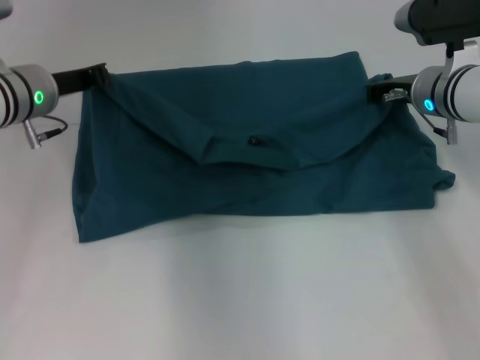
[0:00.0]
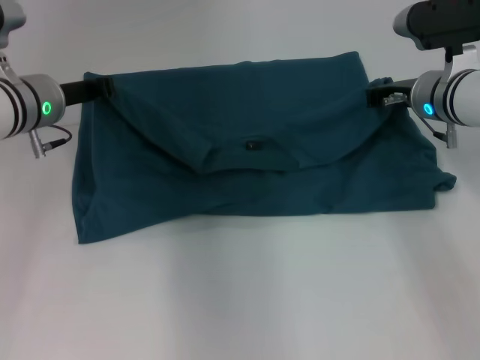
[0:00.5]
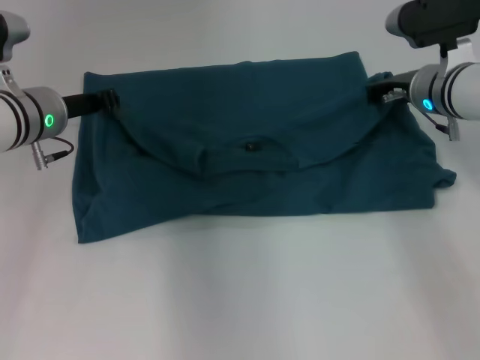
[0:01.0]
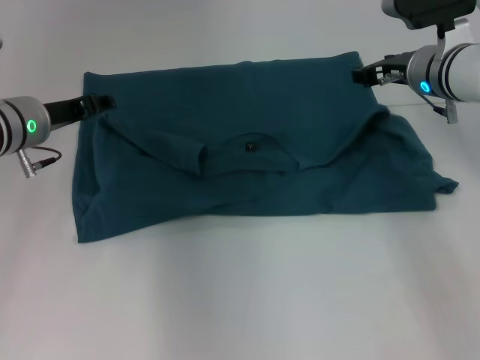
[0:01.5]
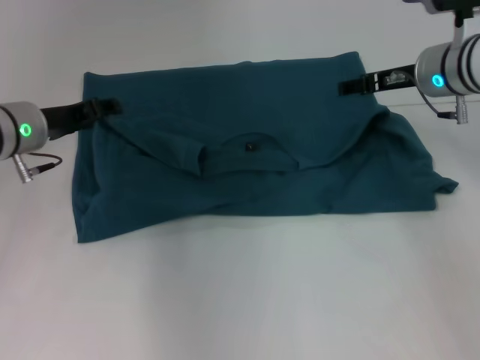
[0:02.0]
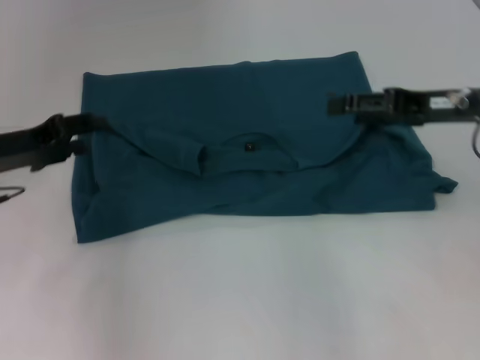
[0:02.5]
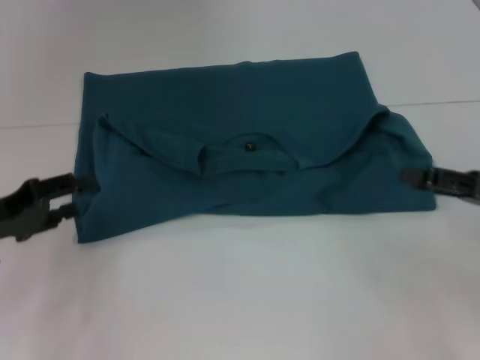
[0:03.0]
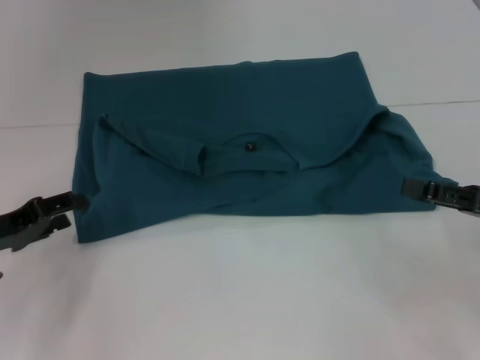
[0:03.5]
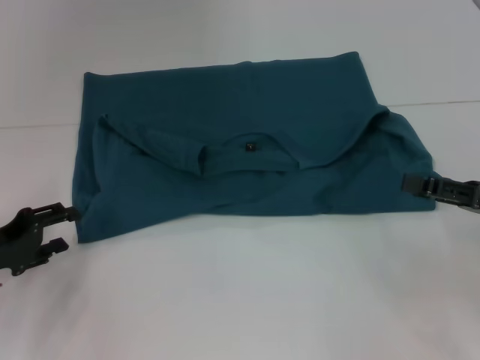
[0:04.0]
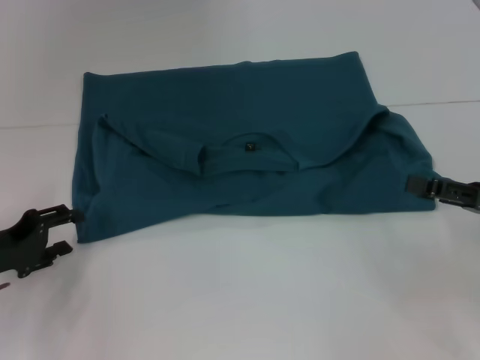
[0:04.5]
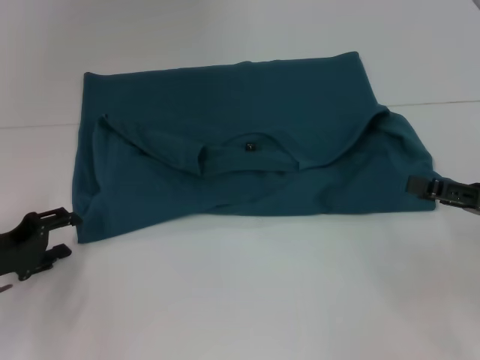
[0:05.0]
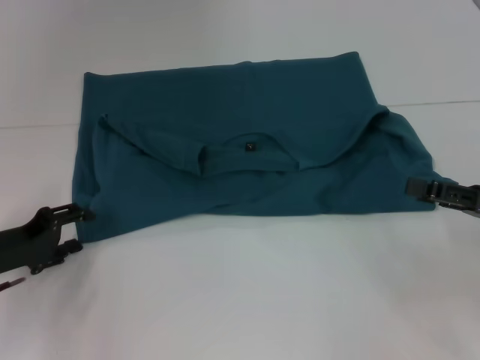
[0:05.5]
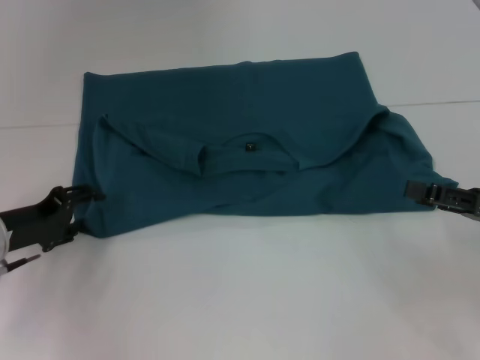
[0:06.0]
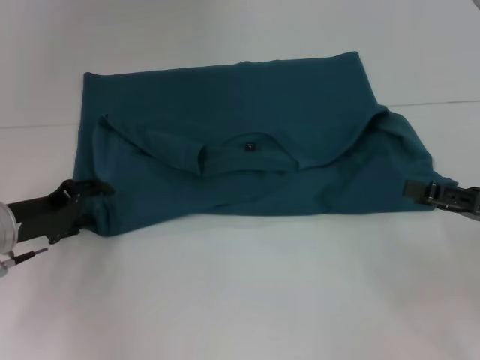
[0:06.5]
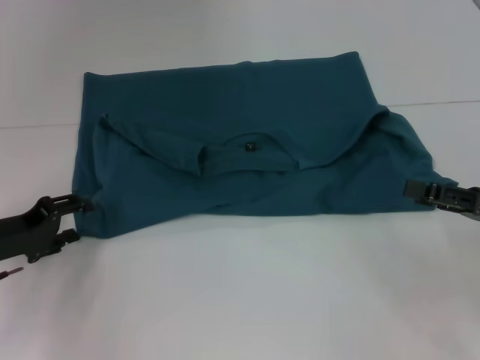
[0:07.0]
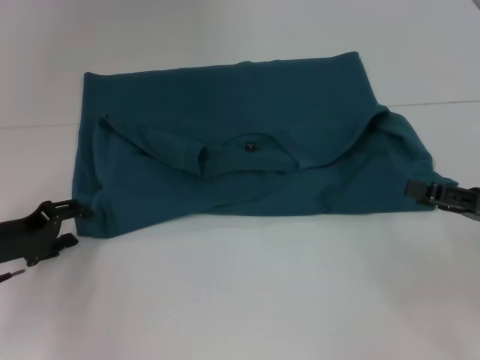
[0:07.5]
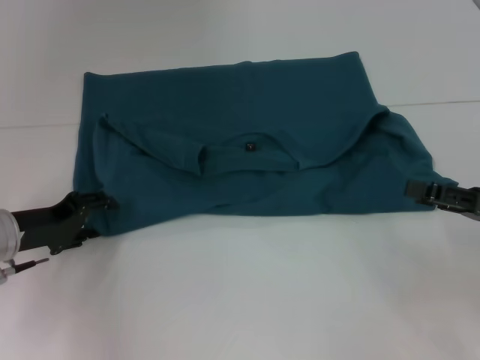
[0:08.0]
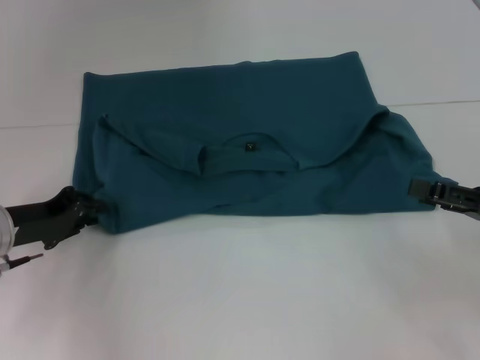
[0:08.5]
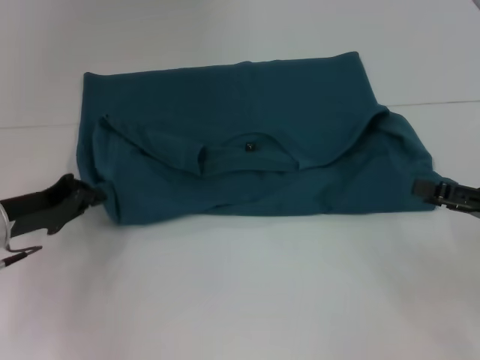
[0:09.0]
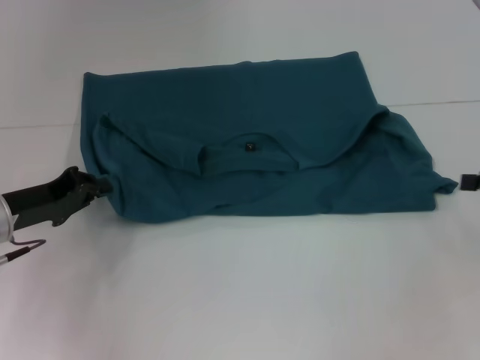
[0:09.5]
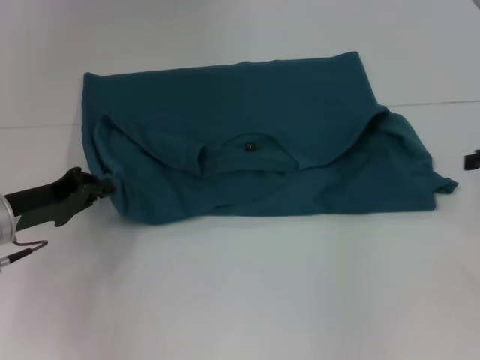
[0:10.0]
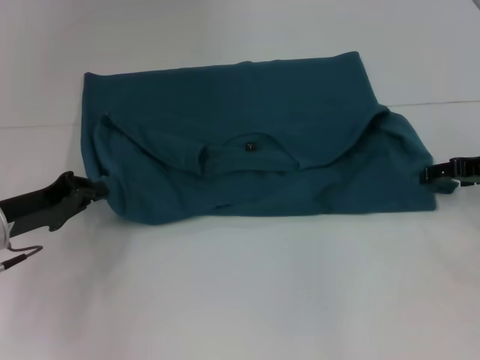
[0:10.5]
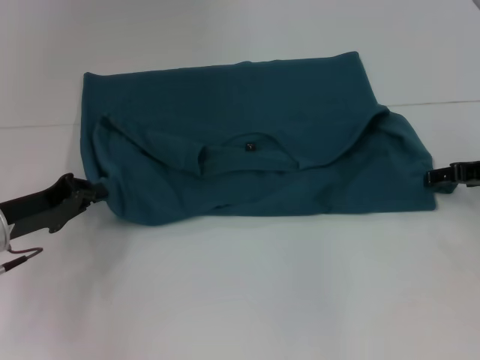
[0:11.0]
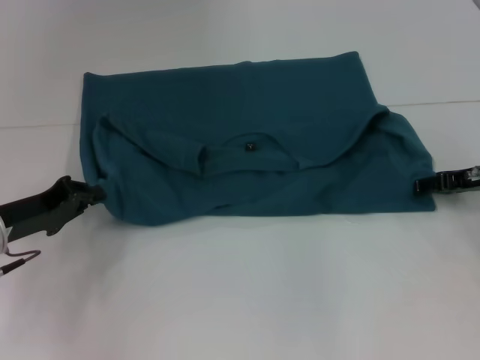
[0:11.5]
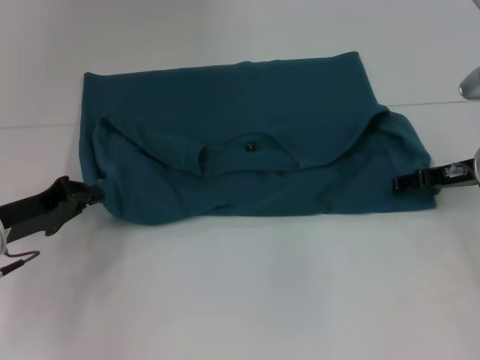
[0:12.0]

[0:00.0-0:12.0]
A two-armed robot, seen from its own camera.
0:00.0 to 0:02.0: The left gripper opens up, while the right gripper opens up.
0:02.0 to 0:04.0: The right gripper moves backward and to the right, roughly 20 cm, while the left gripper is displaced backward, to the left and downward by about 15 cm.
0:04.0 to 0:06.0: The grippers move only a little.
0:06.0 to 0:08.0: The grippers stay close to where they were, moving slightly.
0:08.0 to 0:10.0: The right gripper is displaced forward by approximately 10 cm. The left gripper closes.
0:10.0 to 0:12.0: The right gripper moves to the left and downward, some 10 cm.

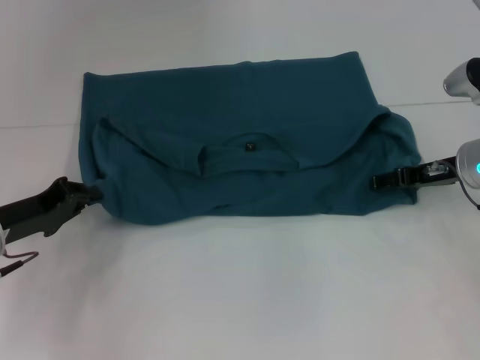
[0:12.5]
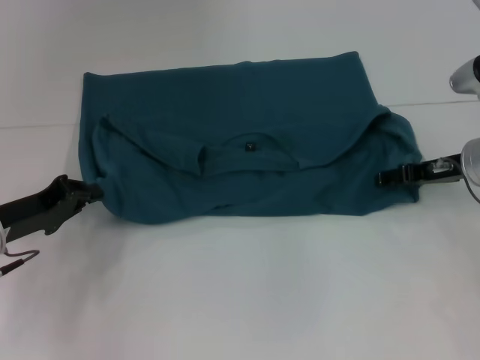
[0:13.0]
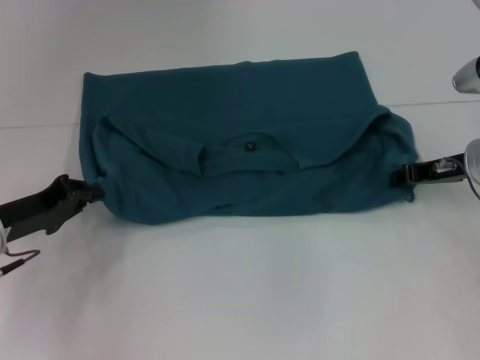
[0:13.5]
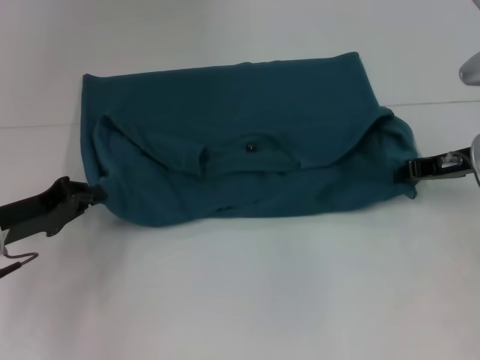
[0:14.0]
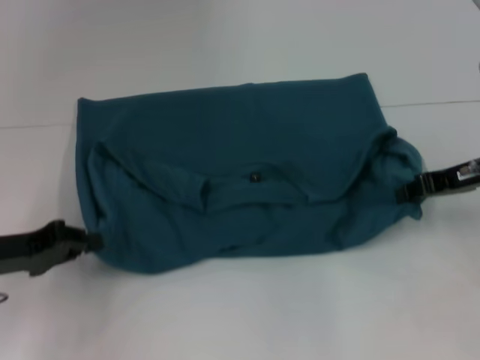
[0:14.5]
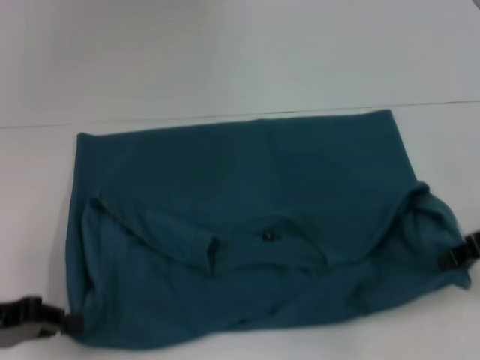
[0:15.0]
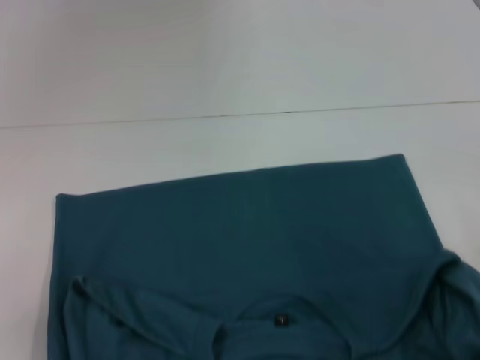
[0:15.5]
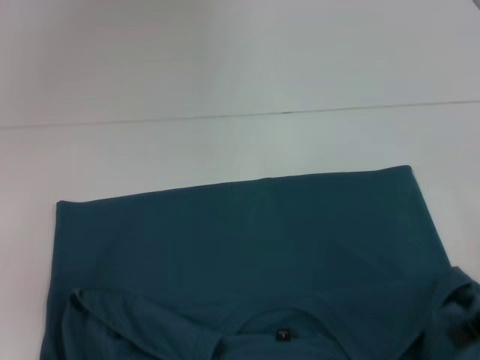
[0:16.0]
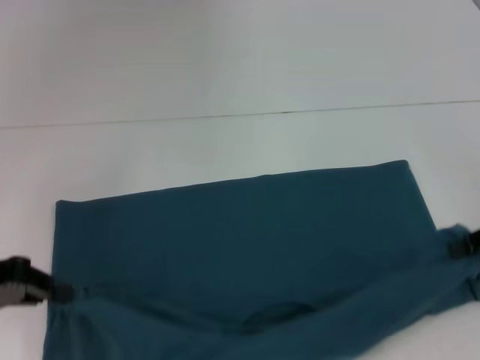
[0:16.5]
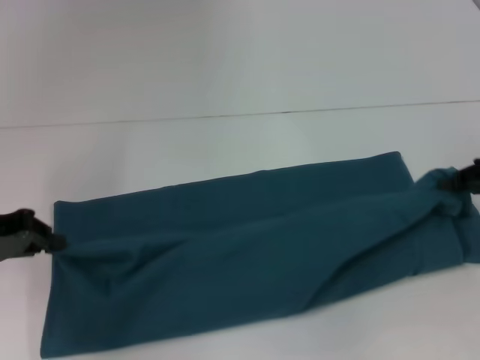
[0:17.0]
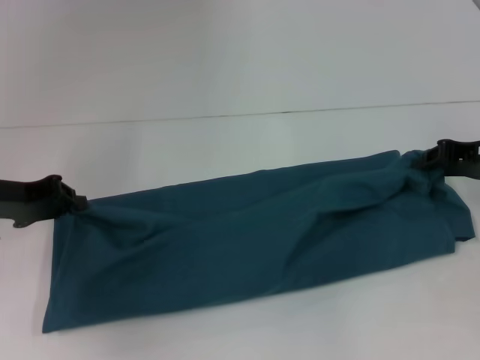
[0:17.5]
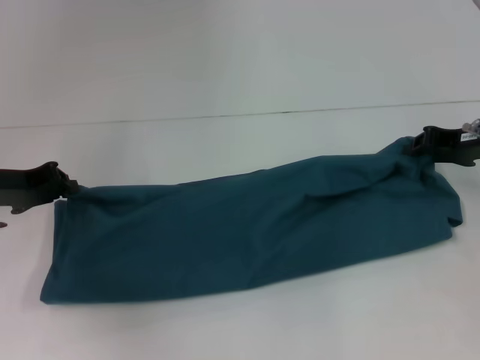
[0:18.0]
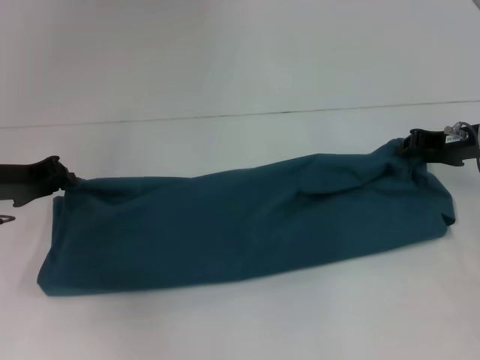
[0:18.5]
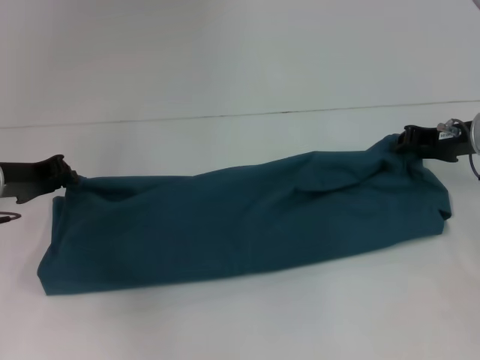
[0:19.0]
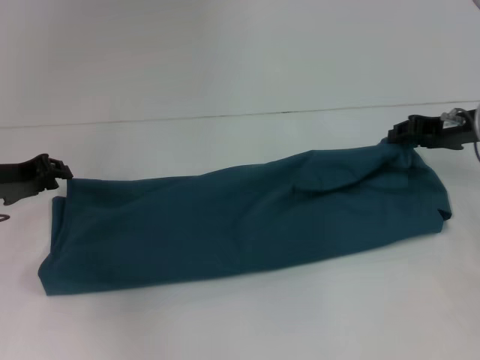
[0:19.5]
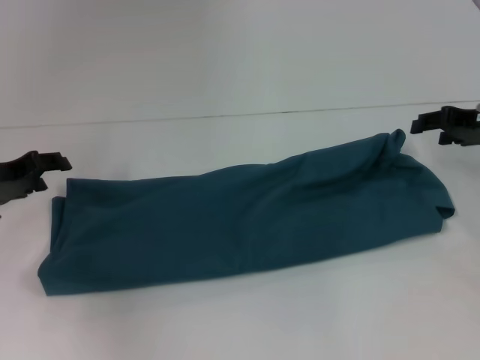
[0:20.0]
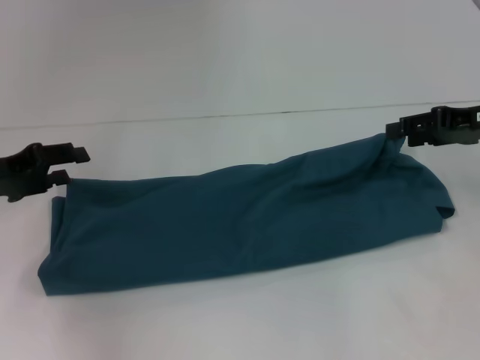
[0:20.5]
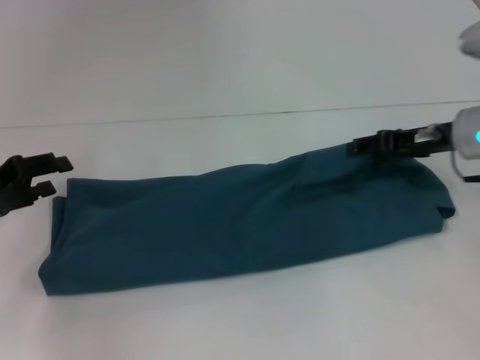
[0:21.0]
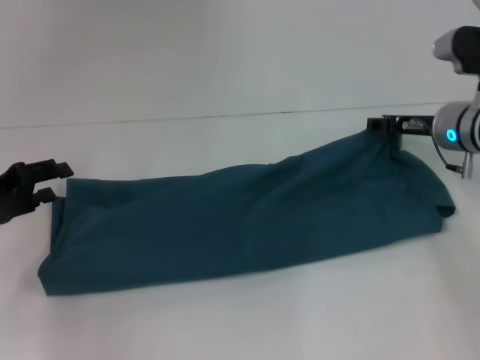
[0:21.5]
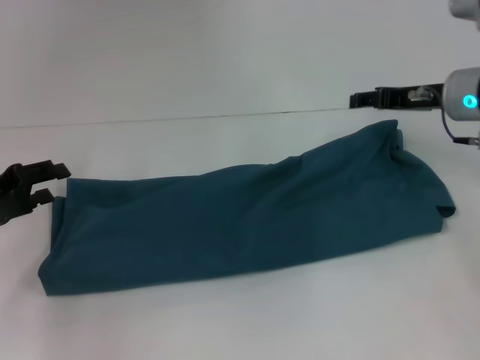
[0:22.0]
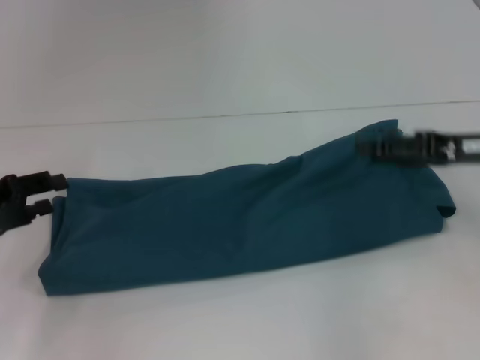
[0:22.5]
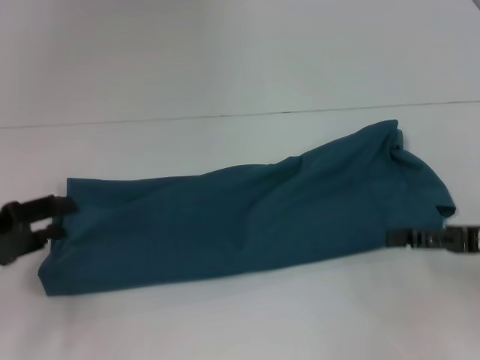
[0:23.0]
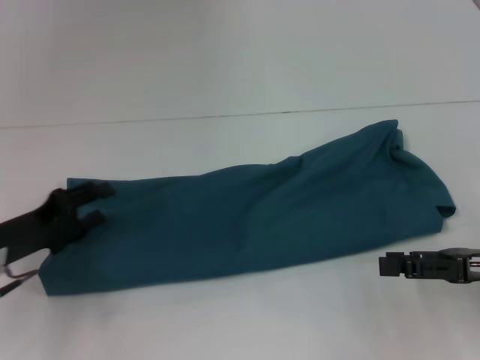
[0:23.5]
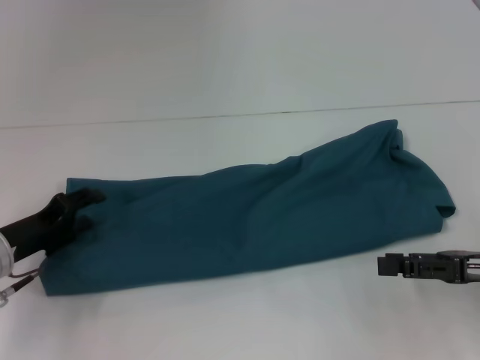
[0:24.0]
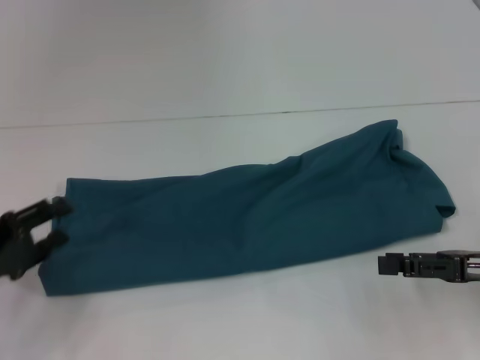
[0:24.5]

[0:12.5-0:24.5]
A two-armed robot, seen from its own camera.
Step, 0:12.5 to 0:15.5: Pull the clothes with your left hand.
Step, 0:12.5 to 0:15.5: Pull the clothes with your right hand.
Step, 0:16.0 to 0:19.5: Fold the clothes to the right.
0:12.5 to 0:14.5: The right gripper changes place by about 5 cm, and closes its fingers.
0:14.5 to 0:16.5: The left gripper moves upward, approximately 5 cm, and moves approximately 10 cm backward and comes back. The right gripper heads to the right, covering some 5 cm.
0:16.5 to 0:18.5: The left gripper travels forward by some 10 cm; the right gripper travels forward and to the left by roughly 10 cm.
0:18.5 to 0:20.5: The right gripper travels upward by roughly 5 cm, and opens up. Meanwhile the left gripper opens up.
0:22.5 to 0:24.5: The right gripper heads backward and downward, covering about 10 cm. The left gripper shifts by roughly 5 cm.

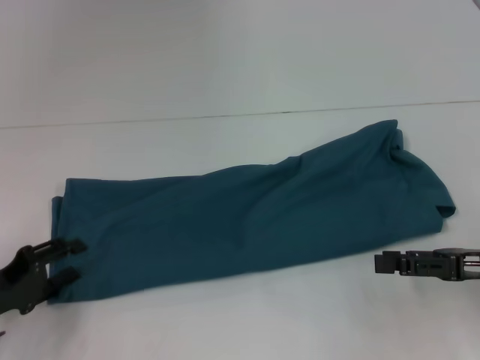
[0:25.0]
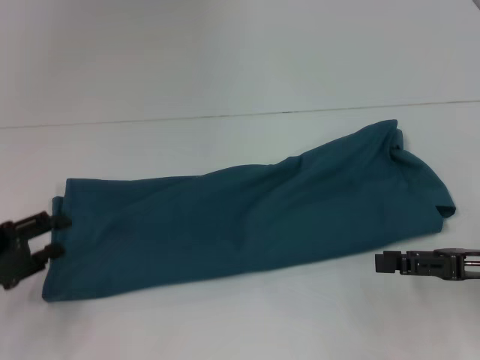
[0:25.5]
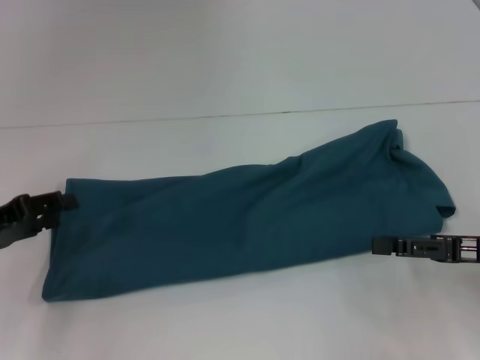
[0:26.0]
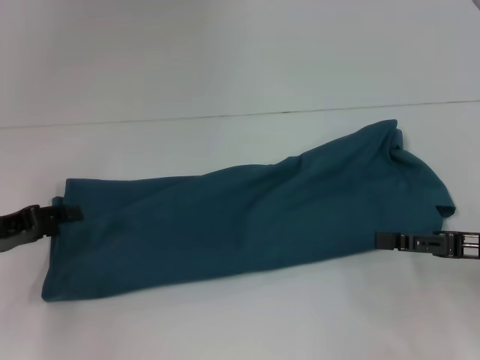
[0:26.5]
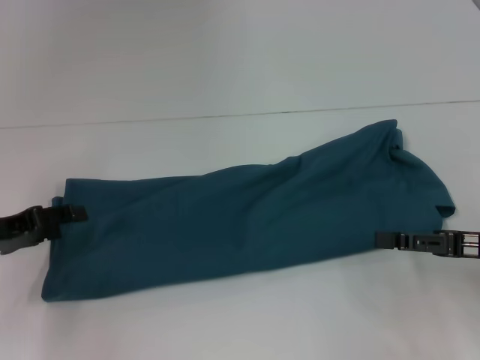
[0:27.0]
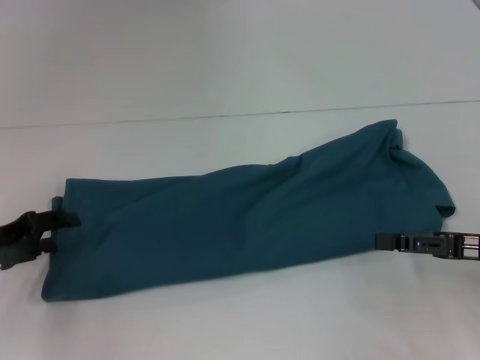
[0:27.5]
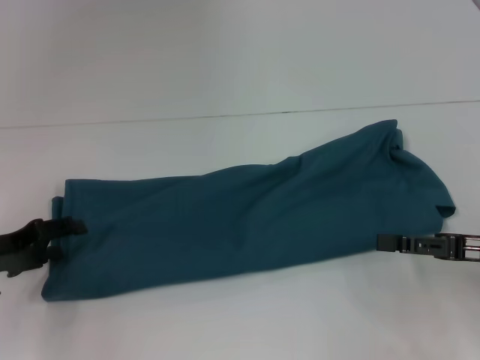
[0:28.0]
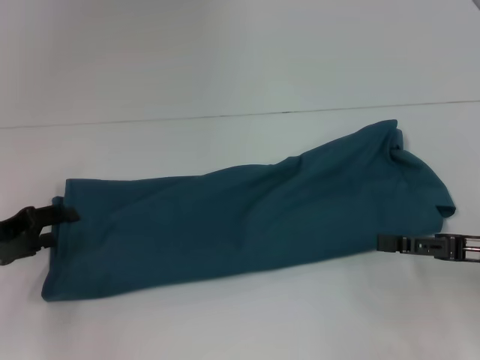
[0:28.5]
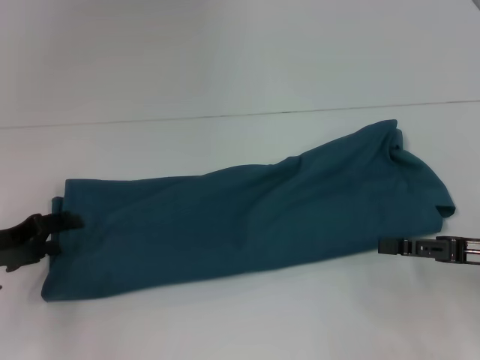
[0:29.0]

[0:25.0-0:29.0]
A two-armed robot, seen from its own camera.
0:25.0 to 0:27.0: The left gripper heads forward, covering roughly 5 cm.
0:27.0 to 0:29.0: The grippers make only small movements.
